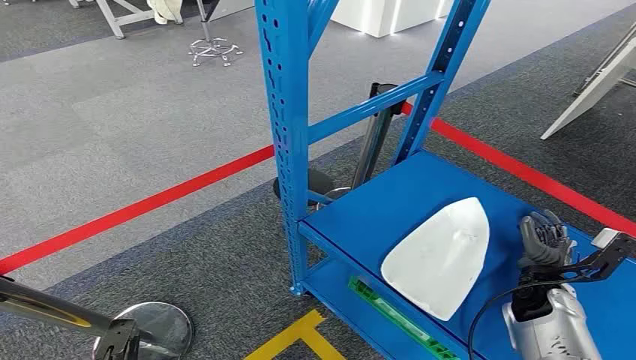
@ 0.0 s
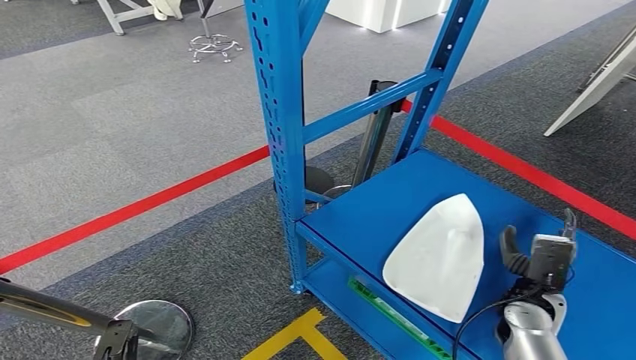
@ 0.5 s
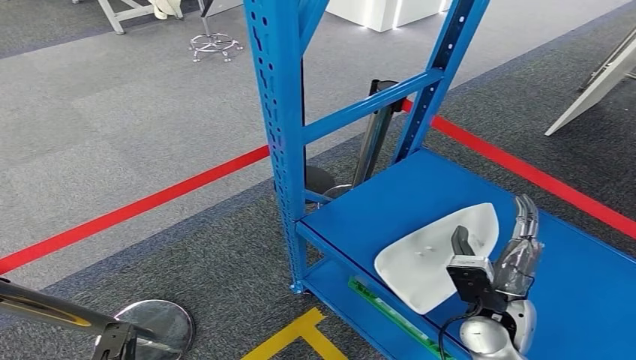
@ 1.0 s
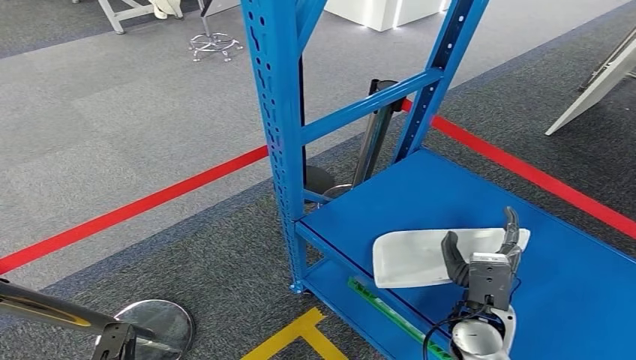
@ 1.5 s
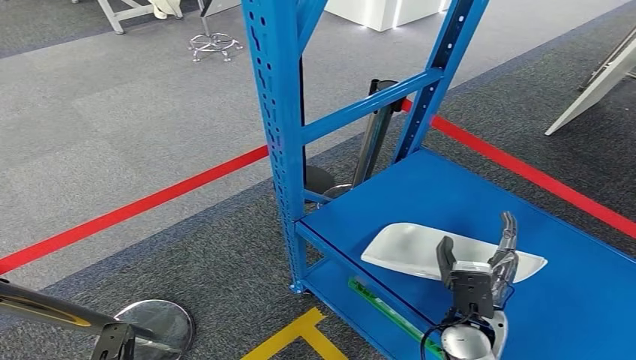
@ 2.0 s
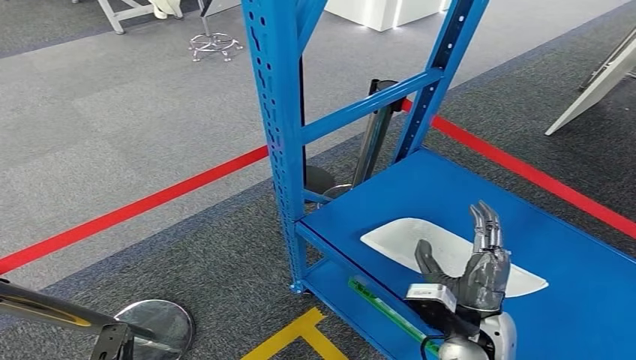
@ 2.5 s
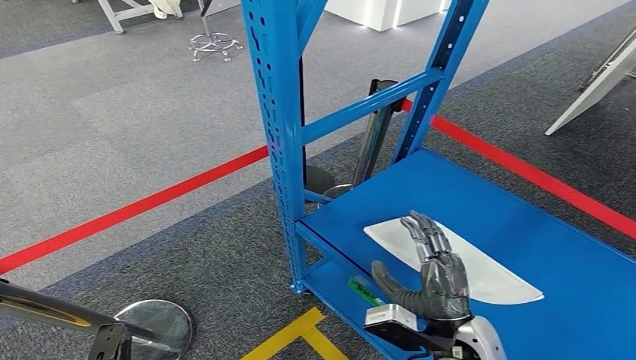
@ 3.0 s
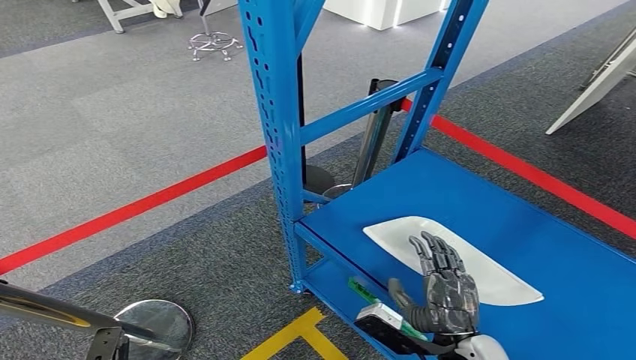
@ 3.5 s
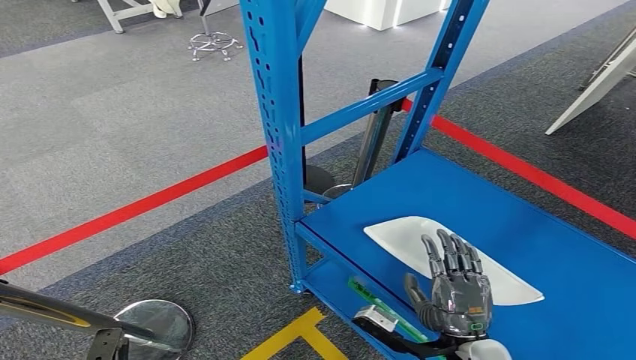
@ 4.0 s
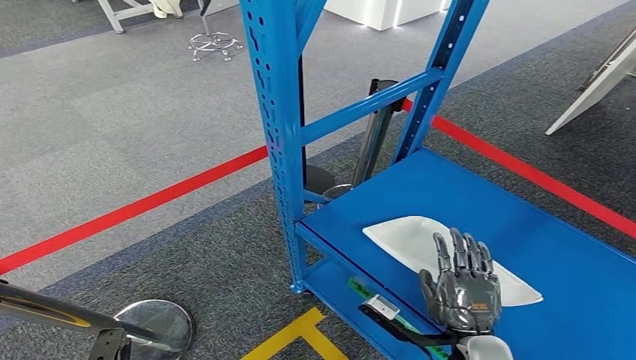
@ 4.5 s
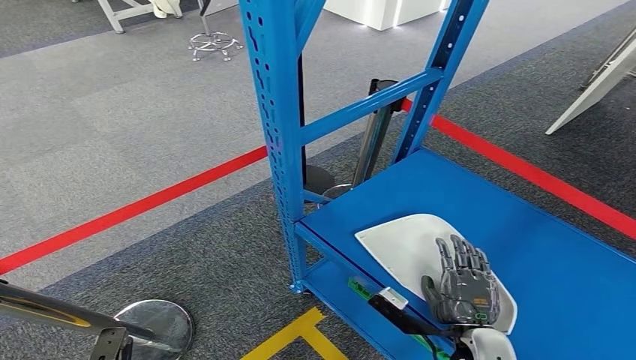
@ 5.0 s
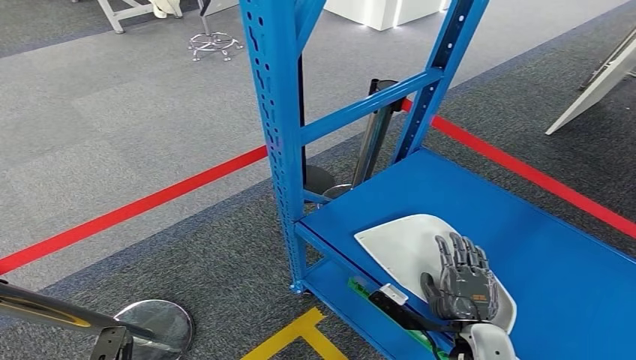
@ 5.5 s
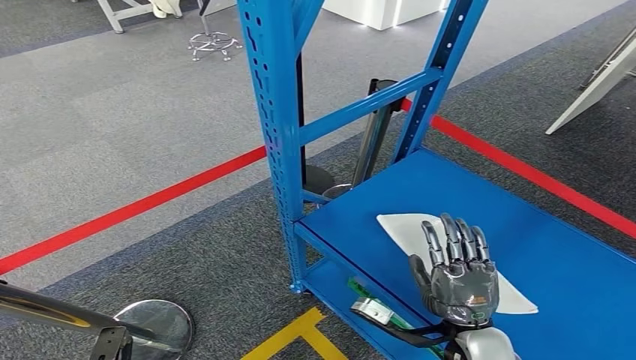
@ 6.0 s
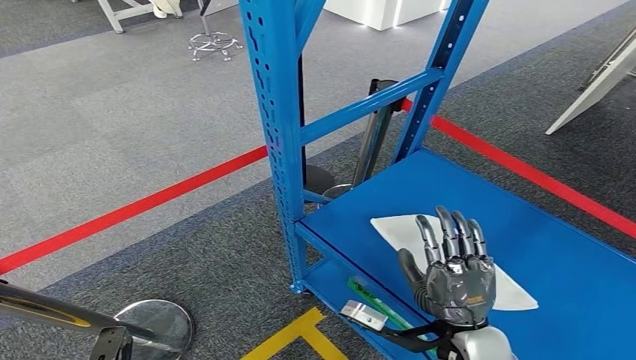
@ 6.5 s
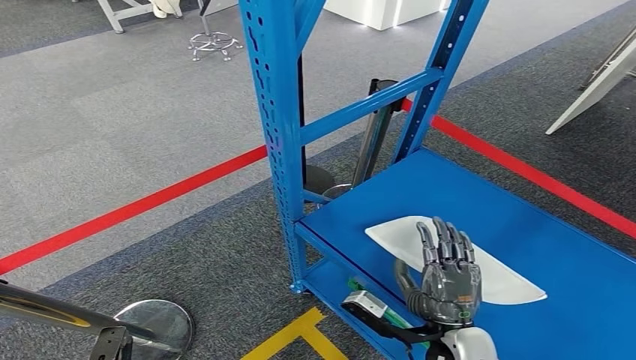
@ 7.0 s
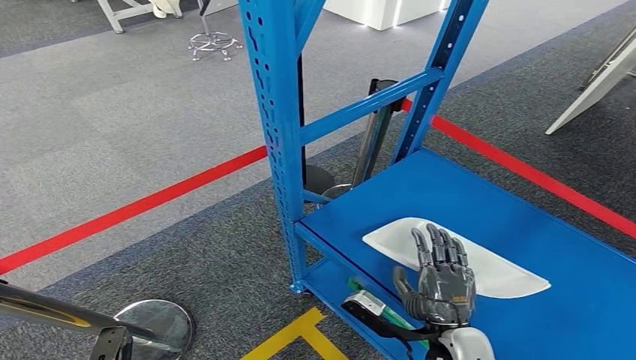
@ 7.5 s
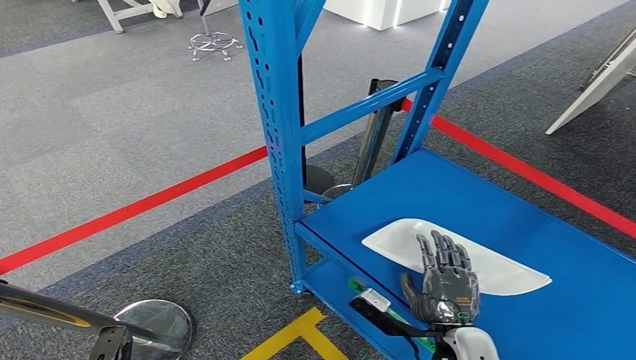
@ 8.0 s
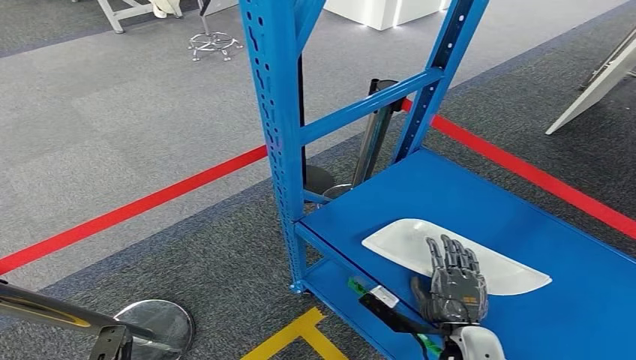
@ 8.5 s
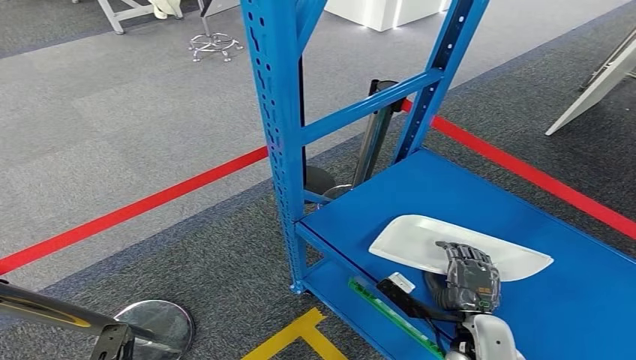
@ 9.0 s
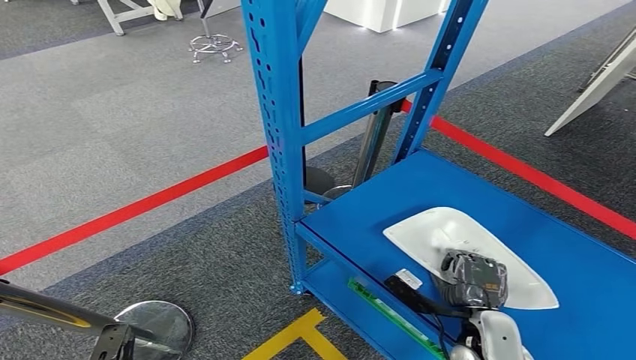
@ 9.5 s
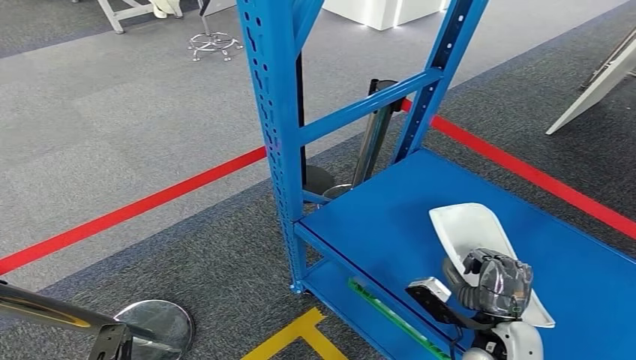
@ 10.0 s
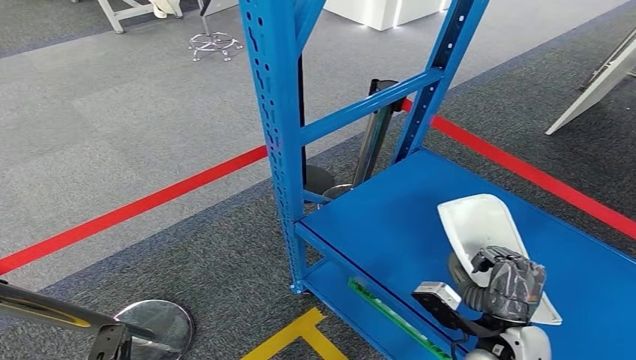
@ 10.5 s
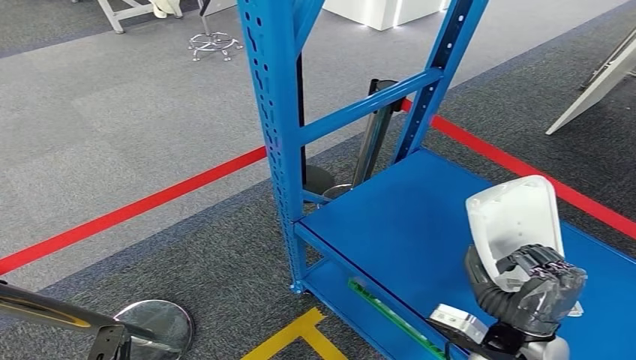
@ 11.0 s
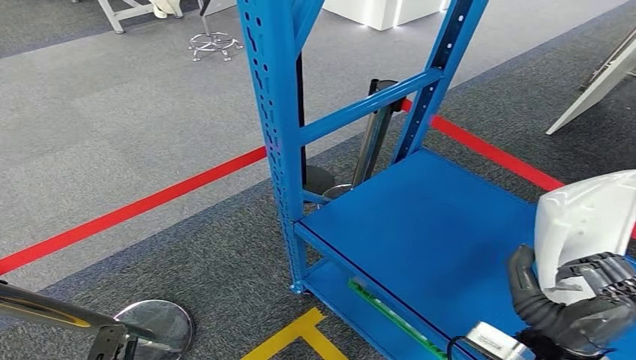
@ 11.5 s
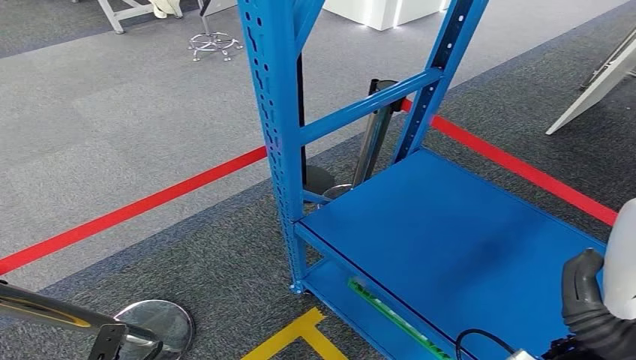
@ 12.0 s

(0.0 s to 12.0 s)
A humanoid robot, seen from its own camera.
2.0 s - 4.0 s: The right hand shifts about 5 cm backward.
4.0 s - 6.0 s: The hands make only small movements.
8.0 s - 10.0 s: The right hand is displaced to the right by roughly 5 cm.
10.0 s - 12.0 s: The right hand goes roughly 15 cm upward.

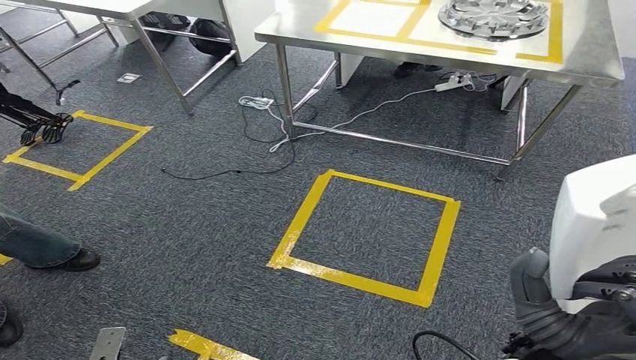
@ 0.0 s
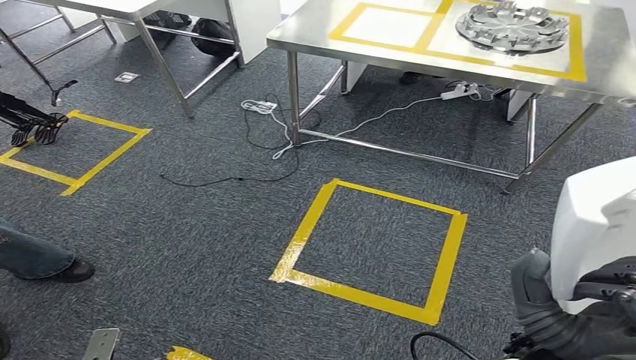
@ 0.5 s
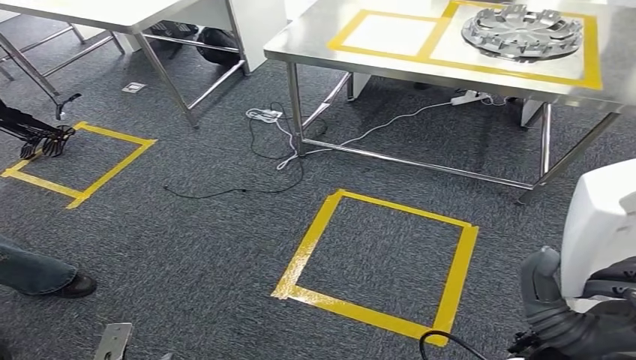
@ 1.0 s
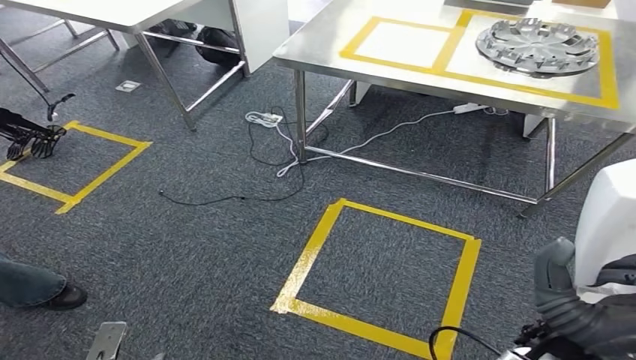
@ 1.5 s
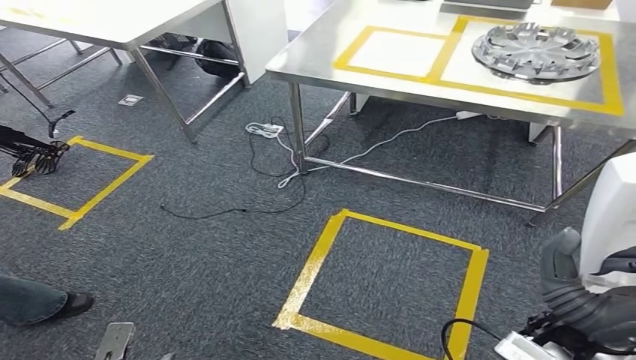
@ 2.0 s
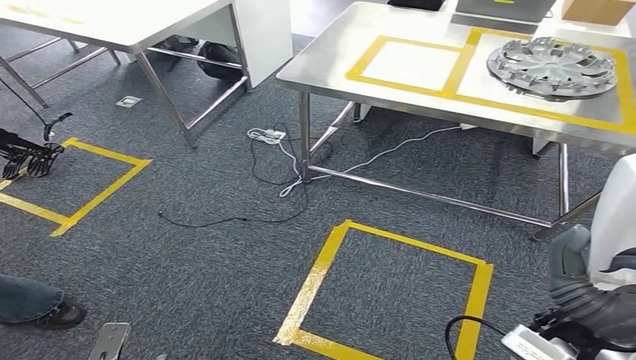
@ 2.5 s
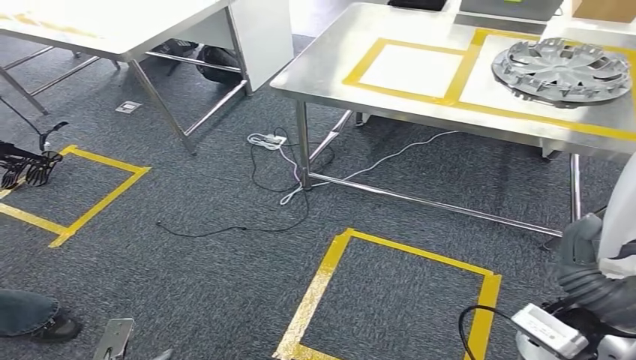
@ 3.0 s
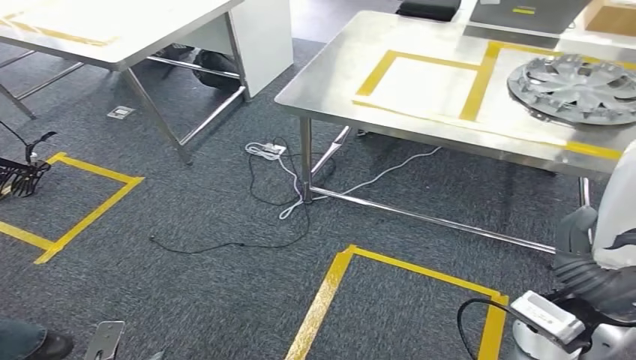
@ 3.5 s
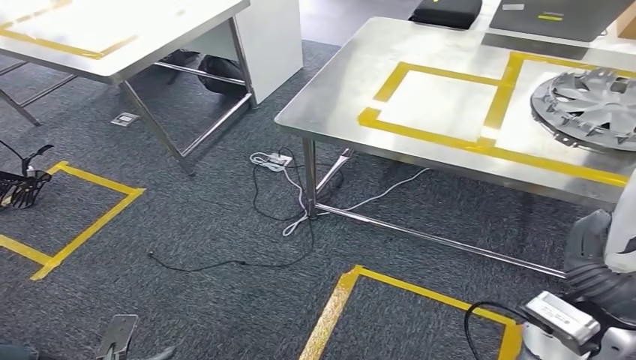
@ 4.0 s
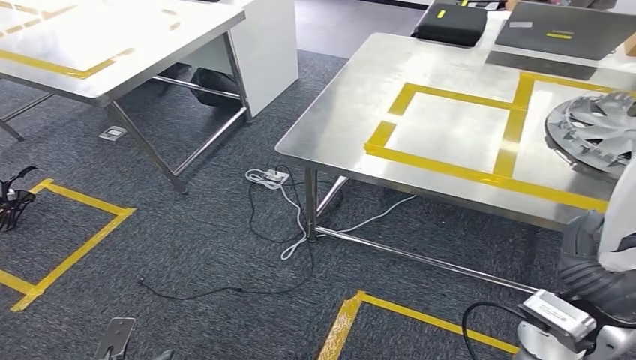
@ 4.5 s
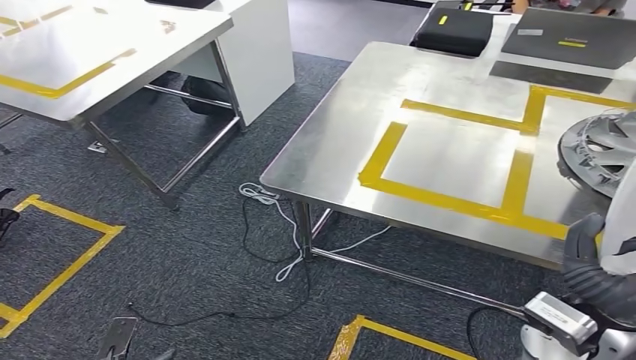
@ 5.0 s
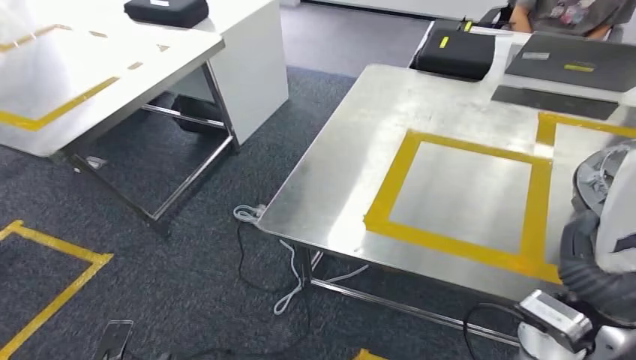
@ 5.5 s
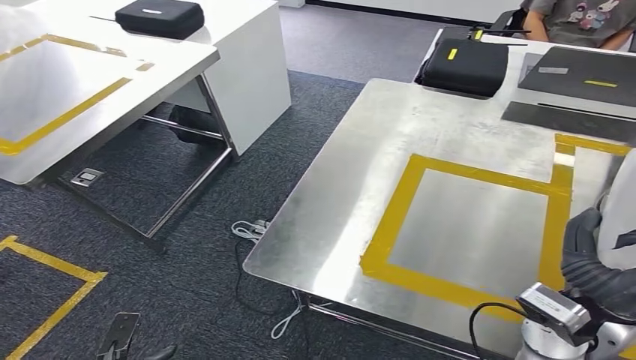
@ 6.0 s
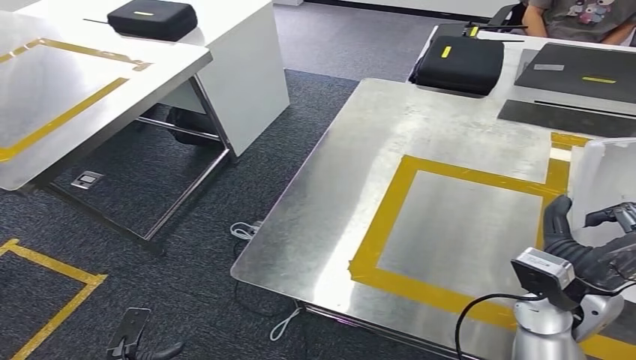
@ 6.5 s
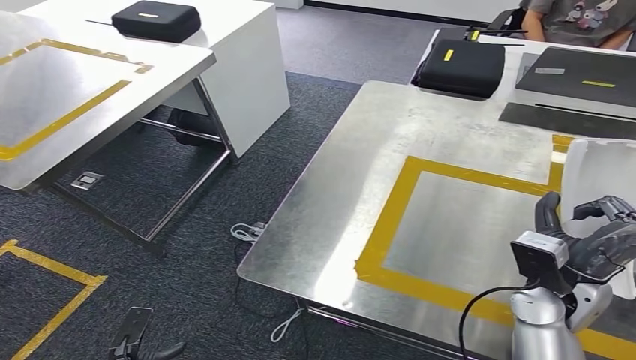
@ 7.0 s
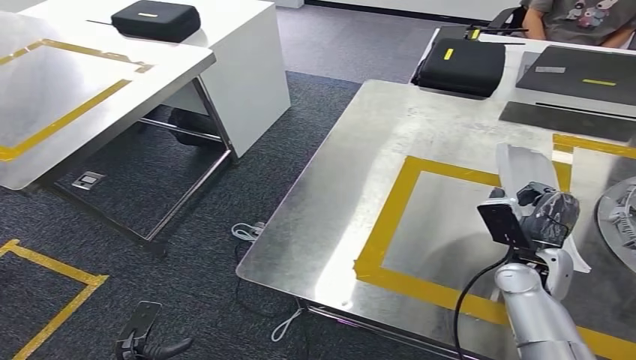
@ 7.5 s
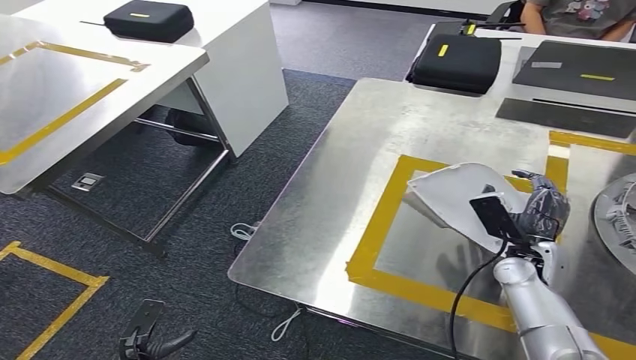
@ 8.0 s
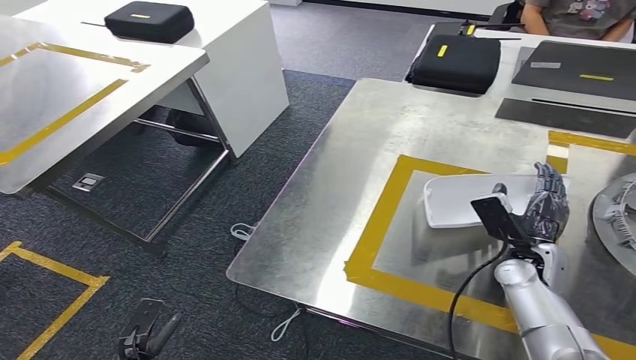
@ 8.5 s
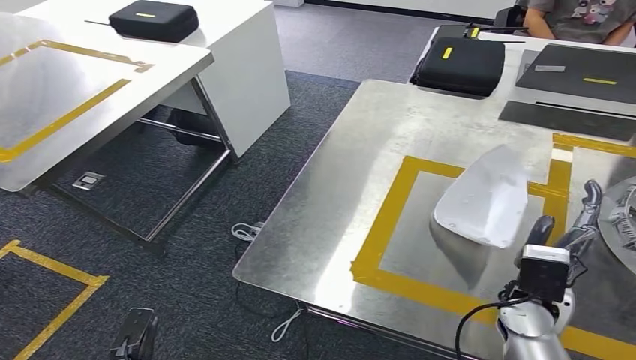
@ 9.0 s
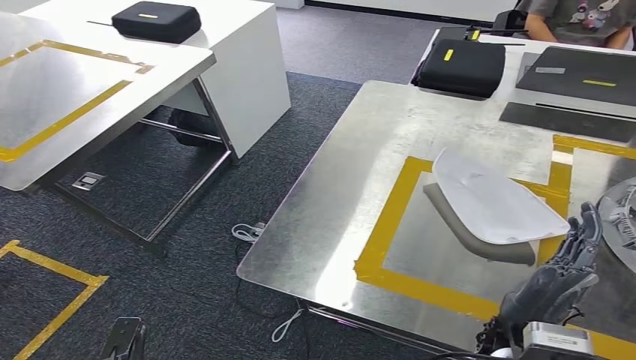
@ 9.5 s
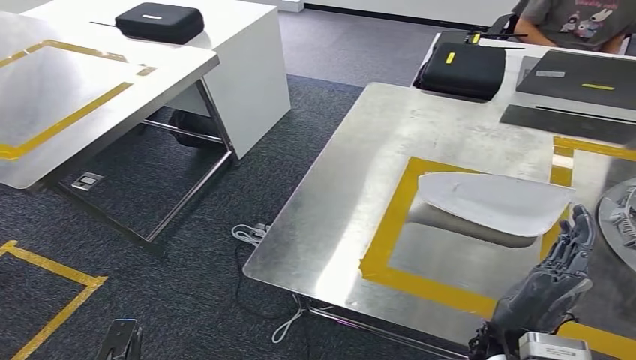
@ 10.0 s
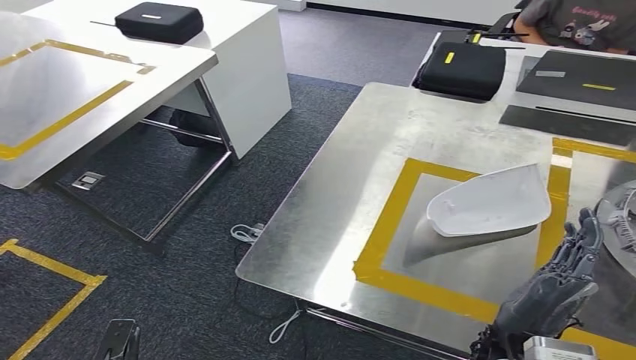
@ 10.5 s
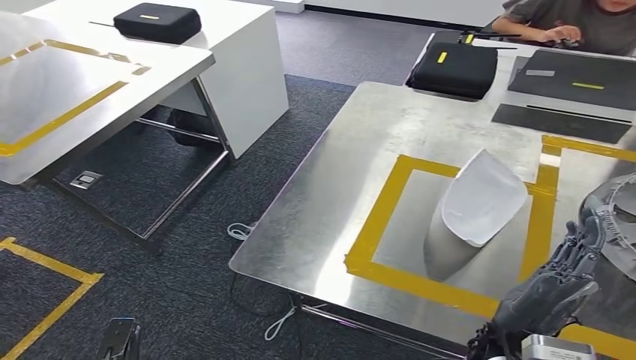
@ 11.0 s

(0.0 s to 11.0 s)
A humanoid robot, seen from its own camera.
Step, 0.0 s - 5.5 s: Move the small parts to the workbench.
7.5 s - 9.0 s: The right hand moves backward, approximately 5 cm.
